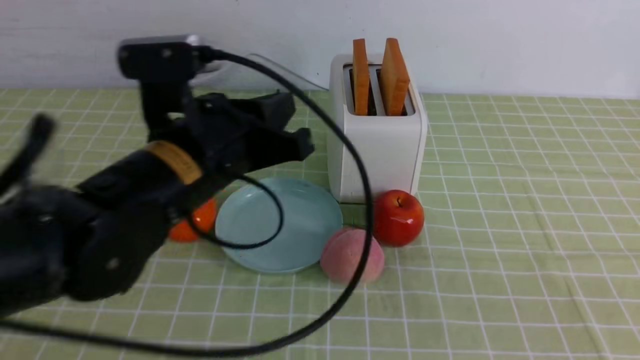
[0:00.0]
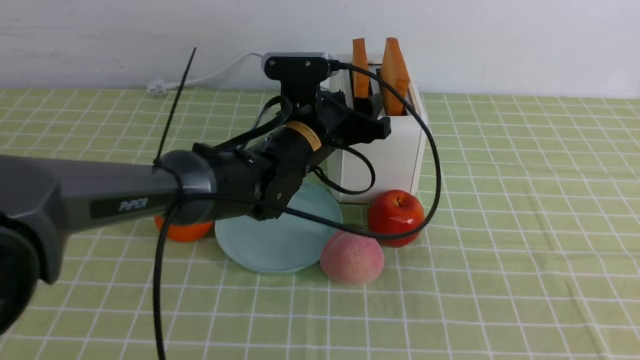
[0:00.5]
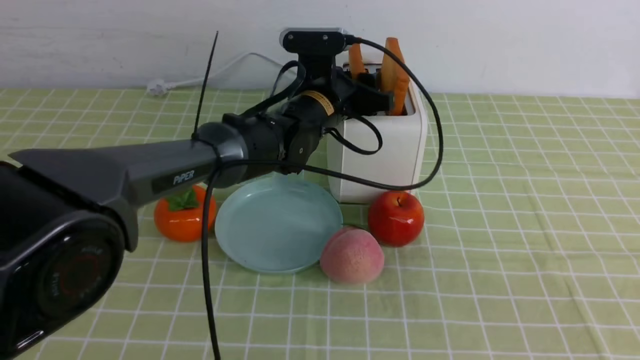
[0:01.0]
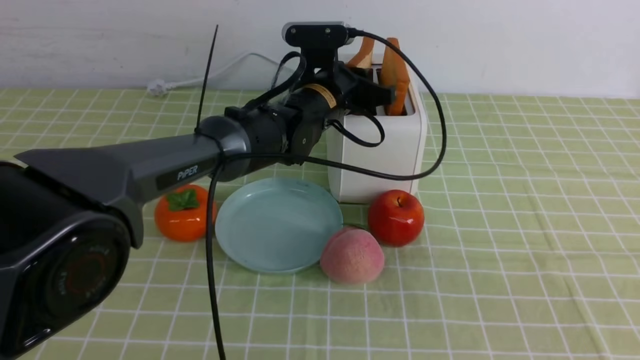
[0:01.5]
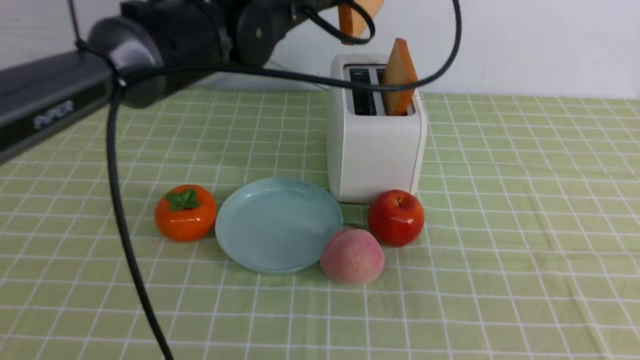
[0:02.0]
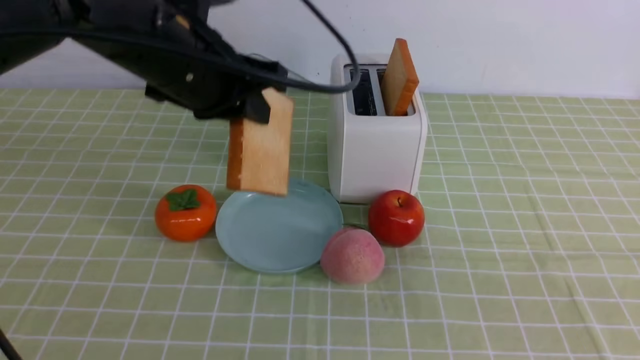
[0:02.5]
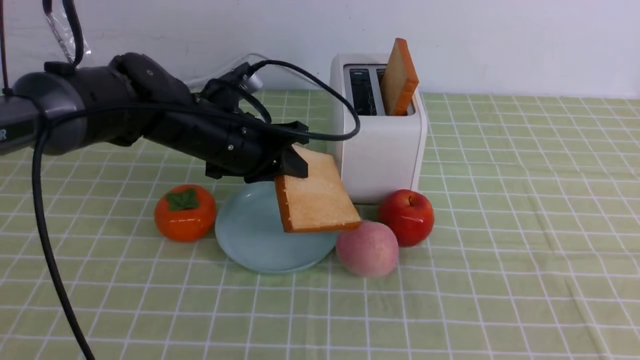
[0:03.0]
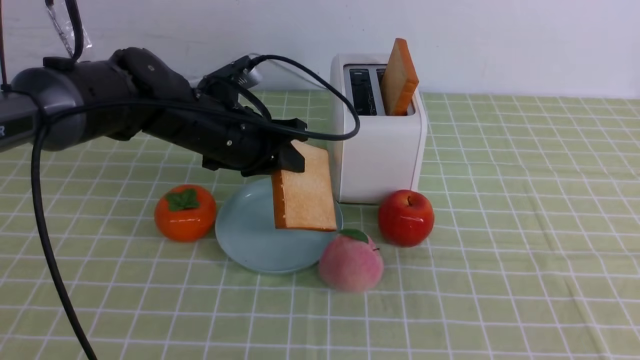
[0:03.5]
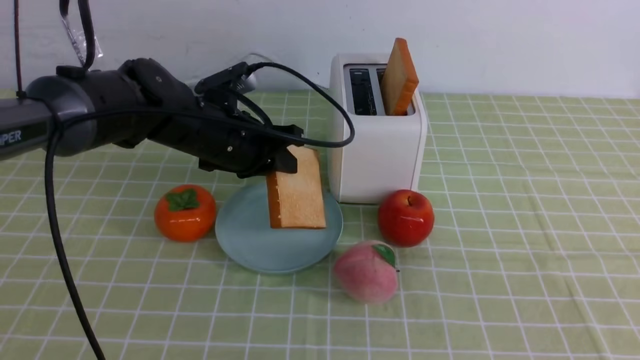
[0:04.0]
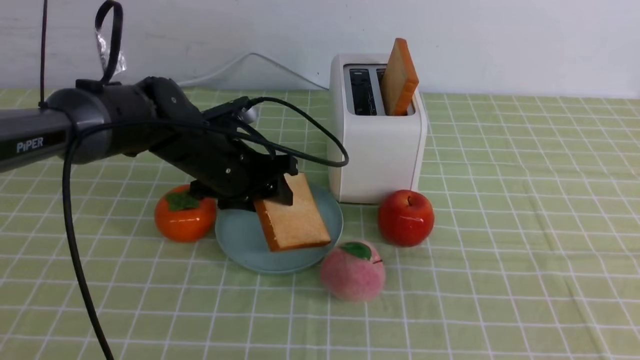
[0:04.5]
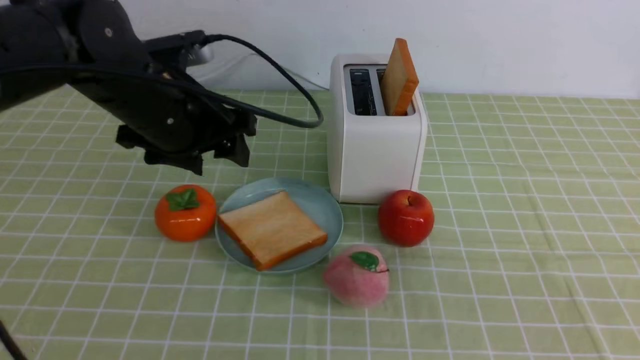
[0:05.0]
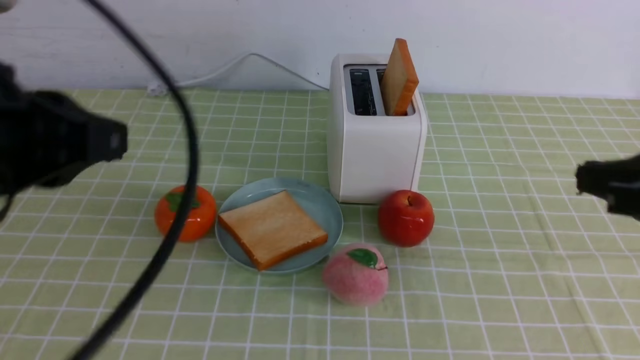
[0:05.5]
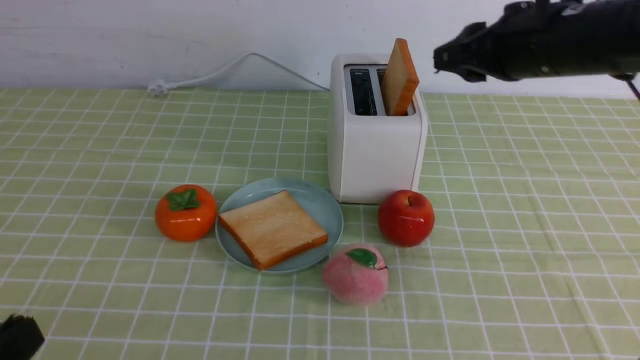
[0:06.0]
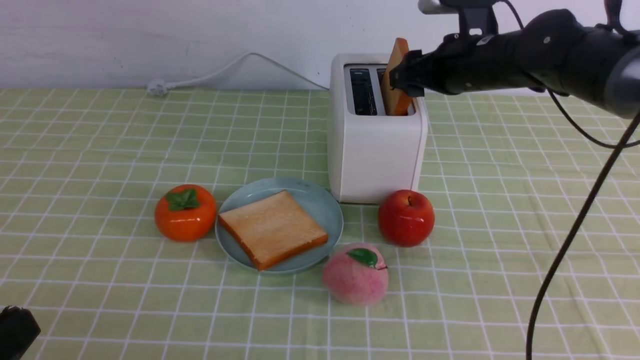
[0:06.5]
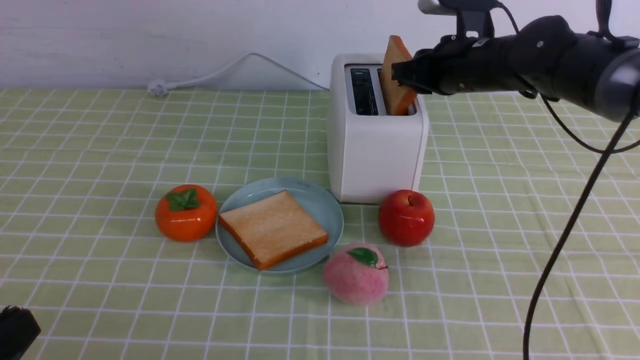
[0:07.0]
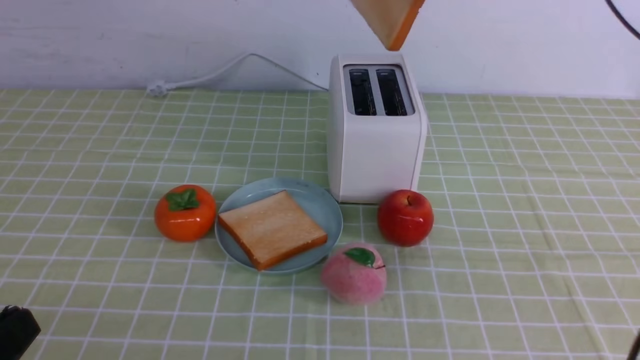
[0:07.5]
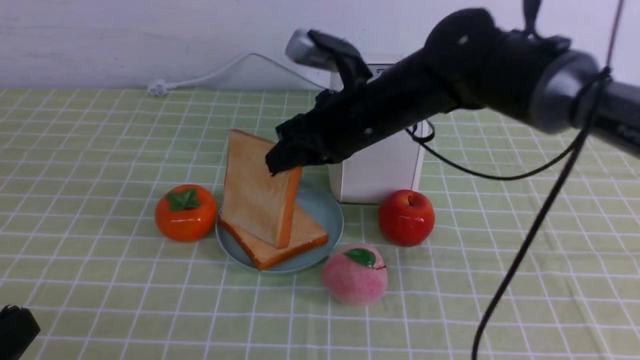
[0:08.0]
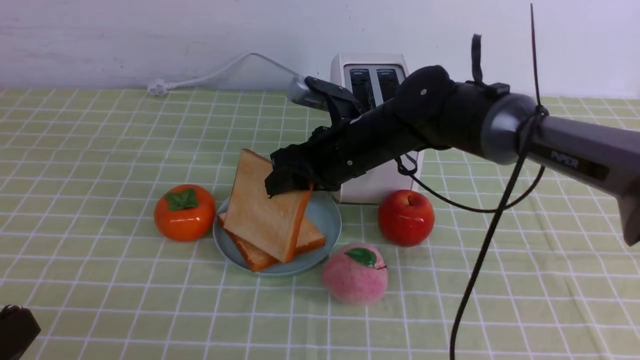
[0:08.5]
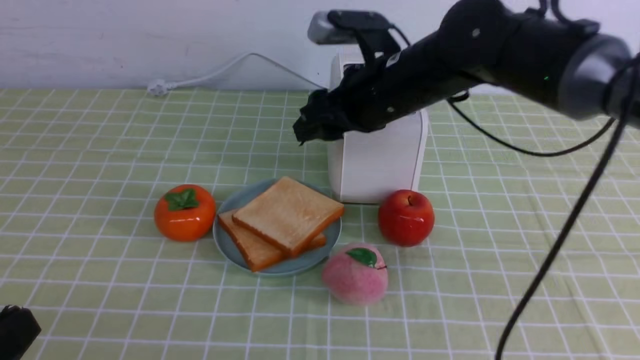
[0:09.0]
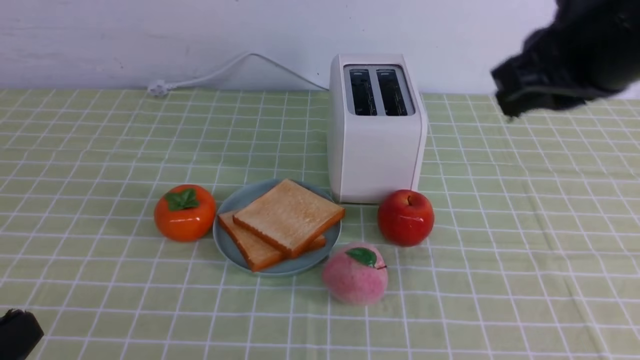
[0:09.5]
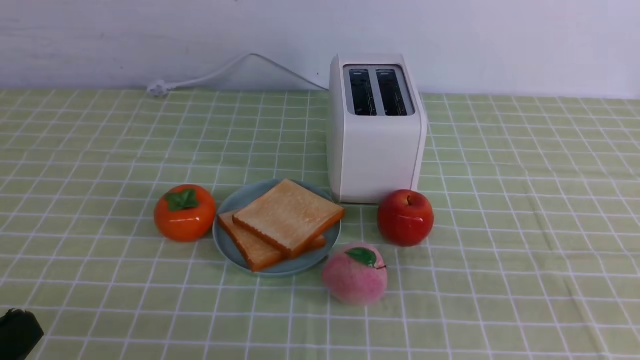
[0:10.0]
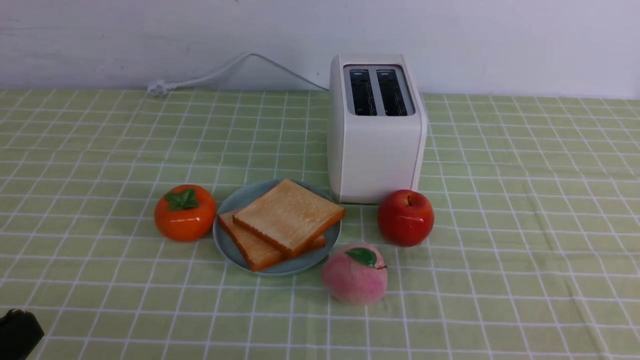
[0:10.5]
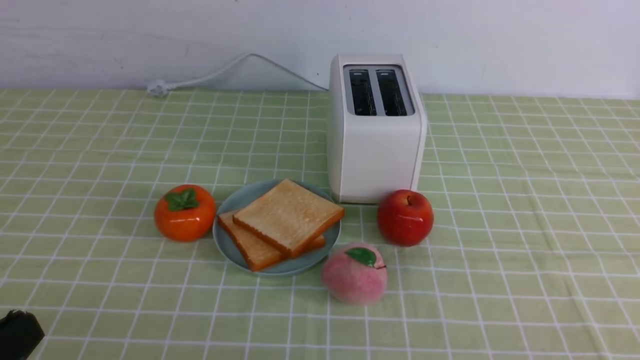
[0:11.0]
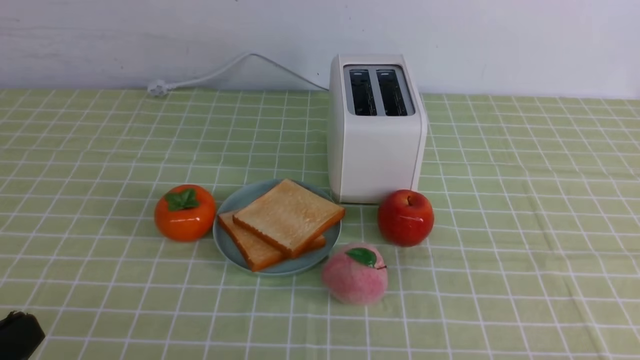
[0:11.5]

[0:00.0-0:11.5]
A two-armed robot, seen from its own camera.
Task of the whole recording: take toasted bread from bread machine on green coffee tablecloth place on plate.
Step, 0:00.0 to 0:02.0: use the left arm to take out a slice of bread.
Step, 0:02.5 to 0:04.5: use the left arm to put a slice of bread into the empty plate.
Step, 0:05.0 to 0:07.5: use the right arm to take out a slice of bread.
Step, 0:08.0 to 0:09.0: use the right arm to put a slice of bread into the plate.
0:00.0 to 0:02.0: The left gripper goes roughly 15 cm forward, upward and to the right, and opens, then closes again.
0:02.0 to 0:04.0: The left gripper shifts about 15 cm downward and to the left.
0:04.0 to 0:06.0: The left gripper travels backward by some 35 cm, and opens and closes again; the right gripper moves forward, some 30 cm, and opens.
0:06.0 to 0:07.5: The right gripper travels upward by some 5 cm, and closes up.
0:07.5 to 0:09.5: The right gripper heads backward, covering some 15 cm, goes downward and returns, some 15 cm each way, and opens and closes again.
0:09.5 to 0:11.5: The right gripper heads downward, backward and to the right, covering approximately 35 cm.

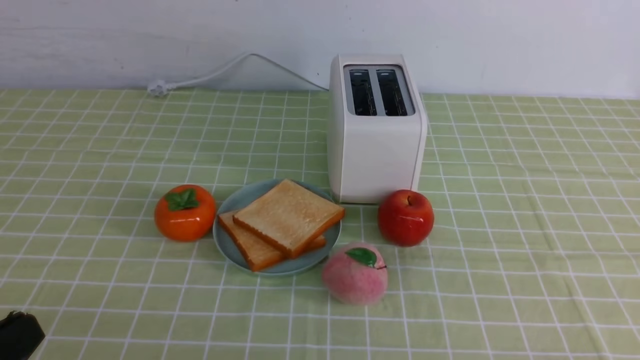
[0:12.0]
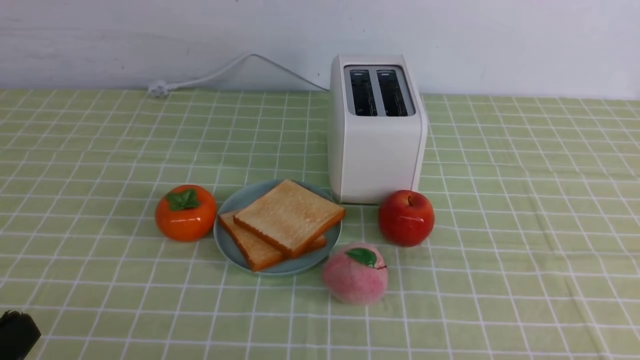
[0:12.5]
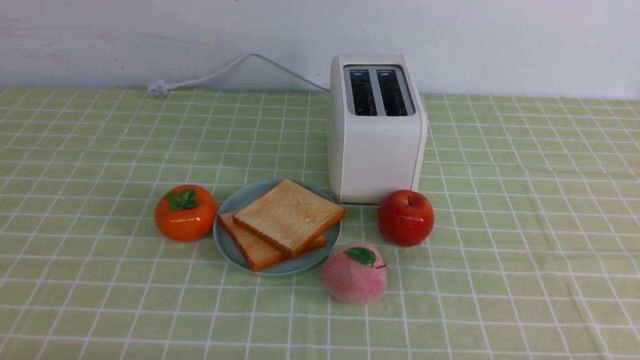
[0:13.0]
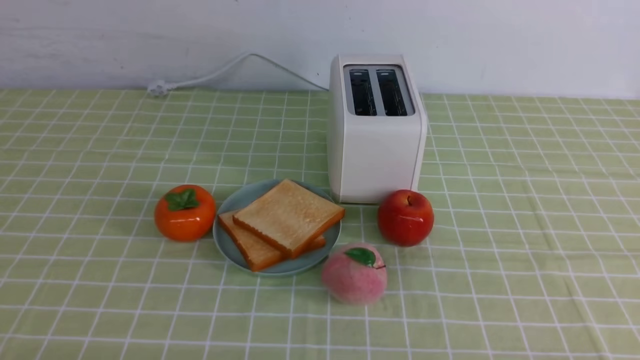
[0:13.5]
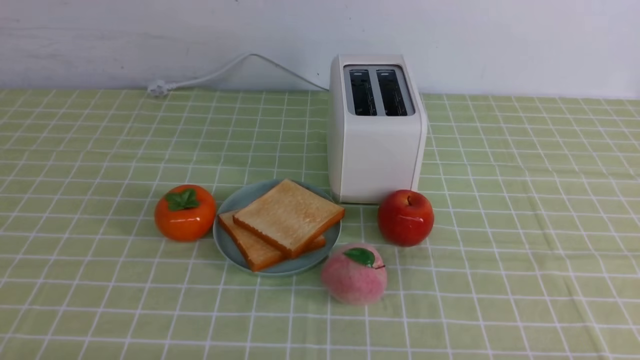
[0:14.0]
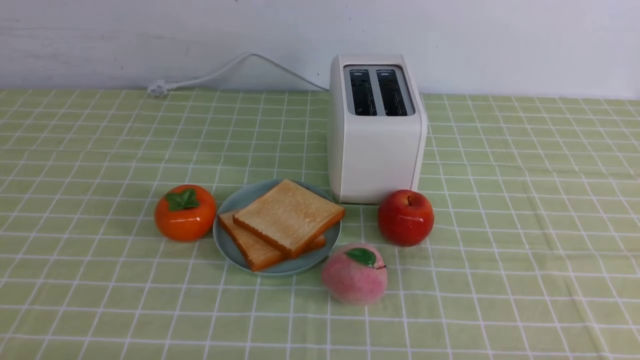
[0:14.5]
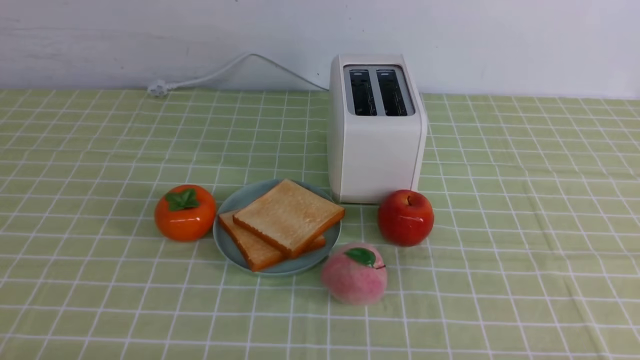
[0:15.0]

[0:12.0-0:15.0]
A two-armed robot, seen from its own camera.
Task of the whole recording: take toasted bread from bread machine on green coffee tablecloth place on plate.
0:12.0 to 0:13.5: The left gripper moves downward, about 10 cm.
0:13.5 to 0:15.0: Both grippers stay about where they are.

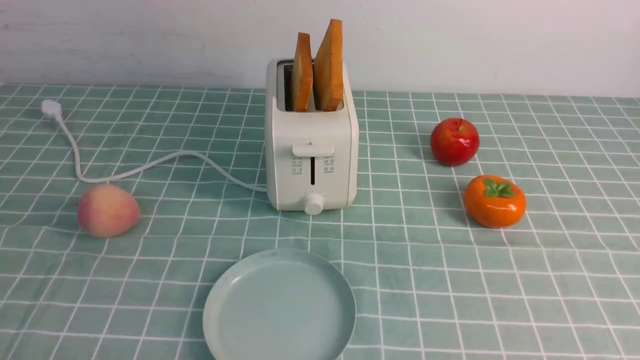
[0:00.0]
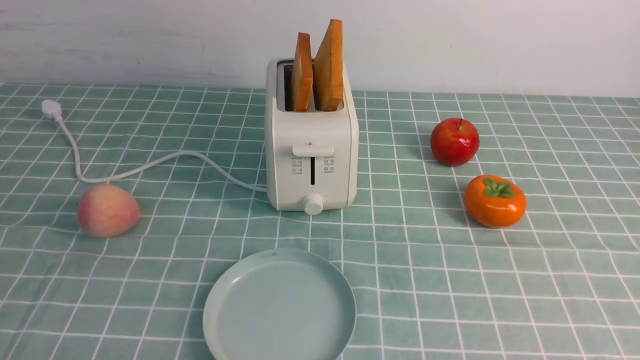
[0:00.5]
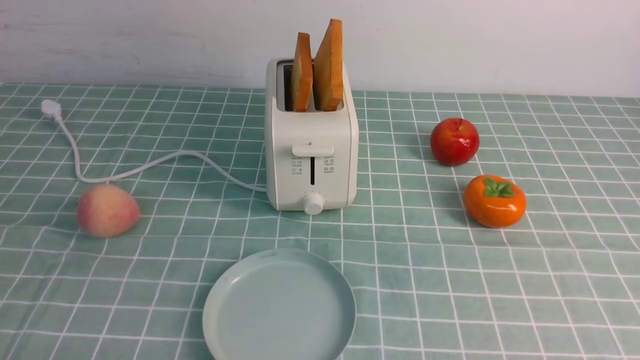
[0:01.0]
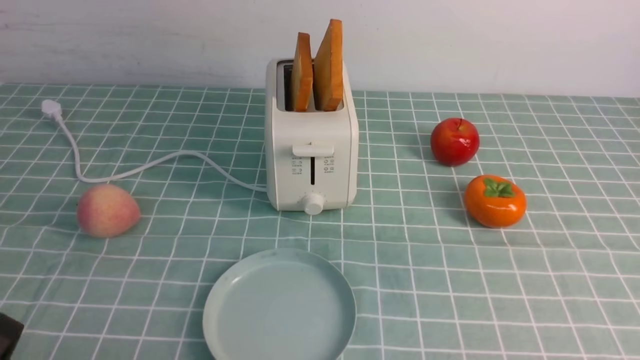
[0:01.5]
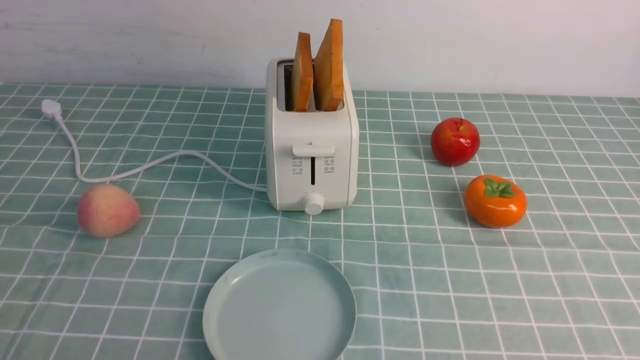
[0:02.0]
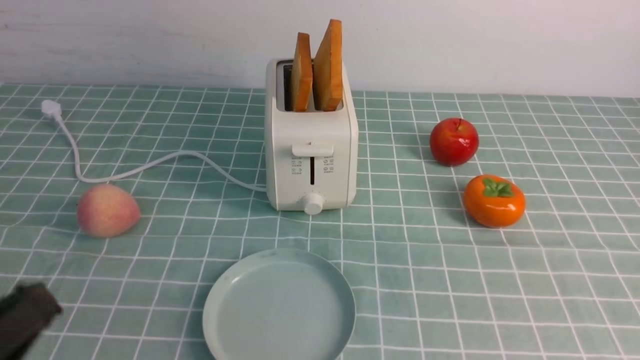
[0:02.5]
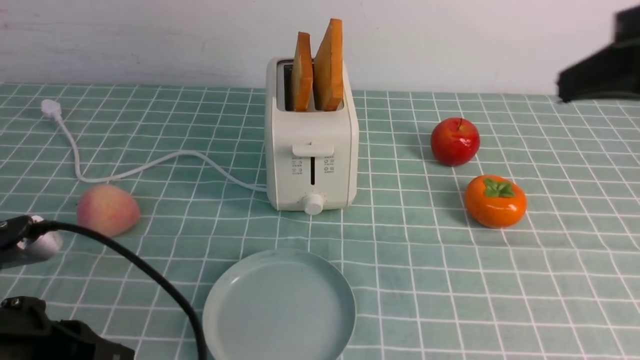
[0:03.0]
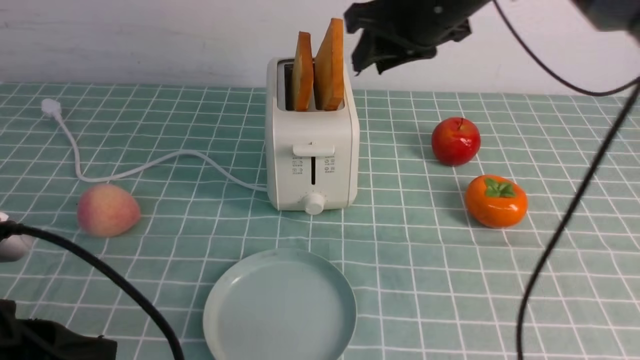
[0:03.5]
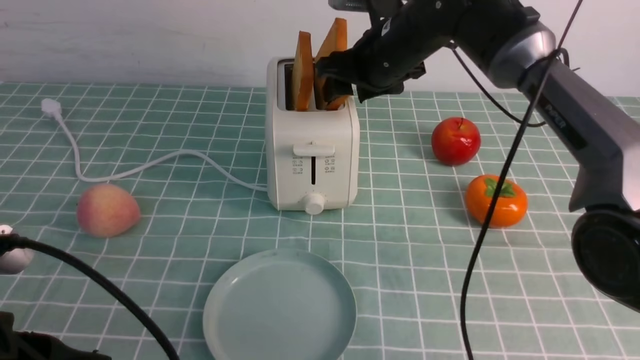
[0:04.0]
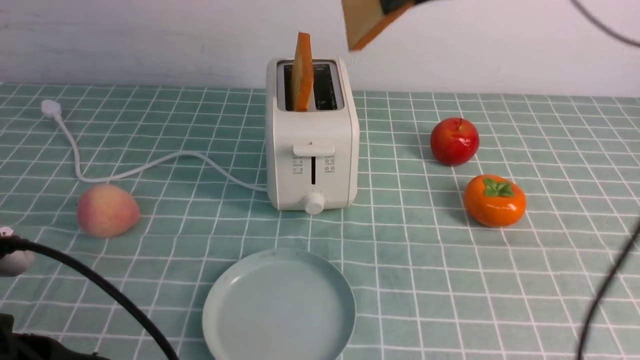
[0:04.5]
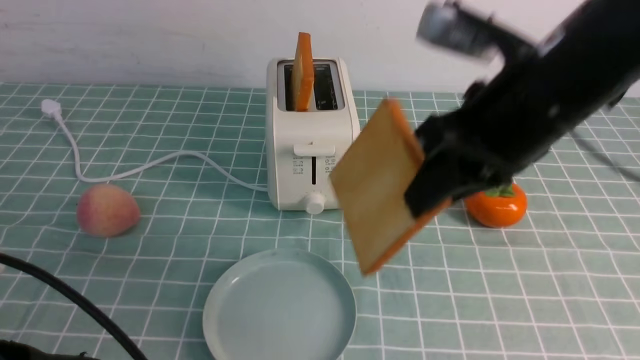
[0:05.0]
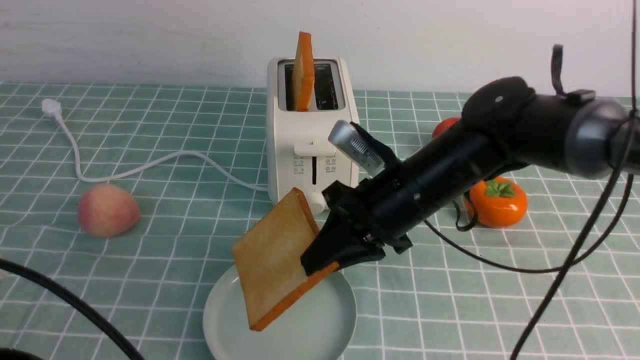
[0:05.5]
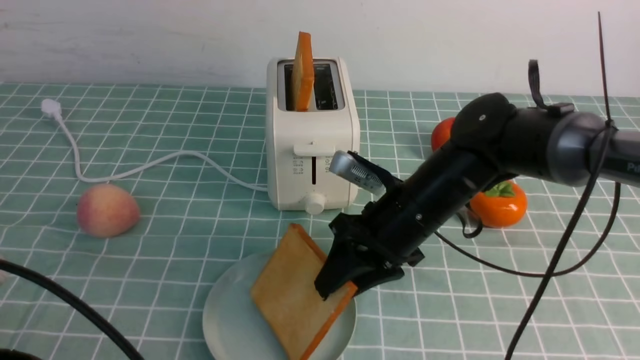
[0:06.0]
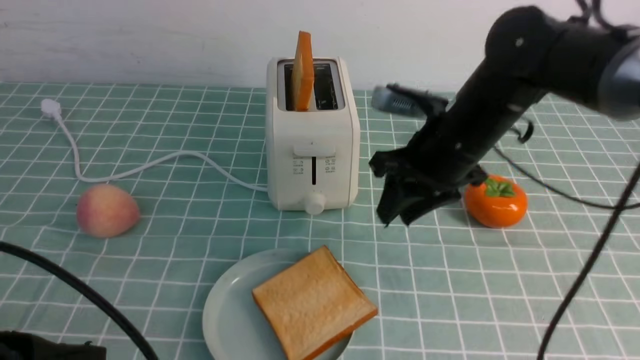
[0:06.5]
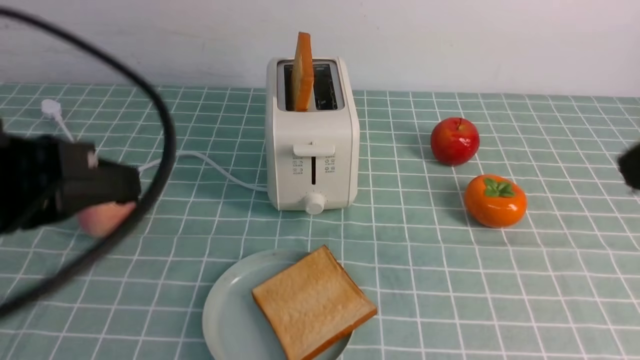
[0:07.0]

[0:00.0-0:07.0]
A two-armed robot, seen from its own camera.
Task of the whole recording: take toasted bread from bread machine on blue coffee table place on plate.
Step, 0:00.0 to 0:04.5: use the right arm to take out a slice of bread.
Step, 0:05.0 to 0:06.0: use the right arm to put a slice of bread into the plate.
0:02.0 to 0:03.5: The left gripper goes about 10 cm forward and upward. The right gripper goes approximately 50 cm forward, to the left and upward, and closes, then reopens.
0:03.5 to 0:05.0: The right gripper is displaced backward by roughly 15 cm, and closes up.
0:05.0 to 0:07.0: The right gripper goes some 15 cm backward and to the right, goes downward and returns, some 15 cm each way, and opens, then closes once more, while the left gripper travels upward and forward by roughly 10 cm.
